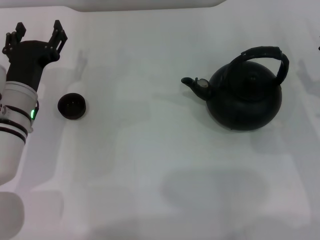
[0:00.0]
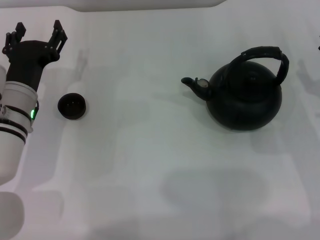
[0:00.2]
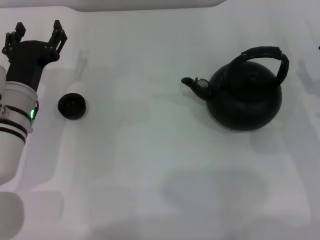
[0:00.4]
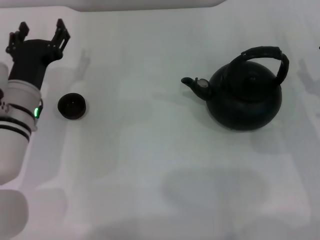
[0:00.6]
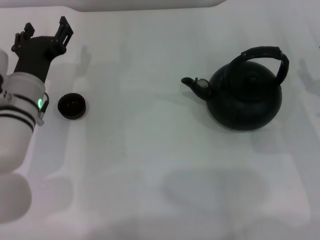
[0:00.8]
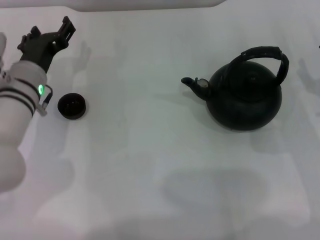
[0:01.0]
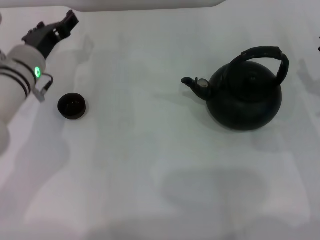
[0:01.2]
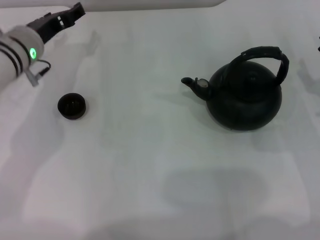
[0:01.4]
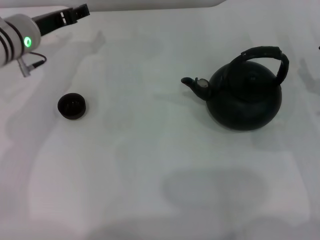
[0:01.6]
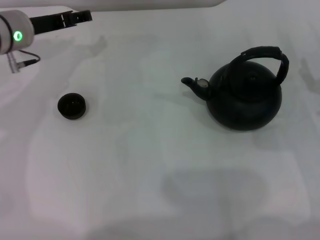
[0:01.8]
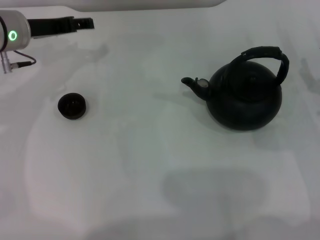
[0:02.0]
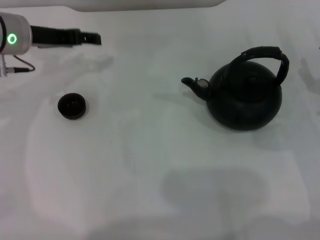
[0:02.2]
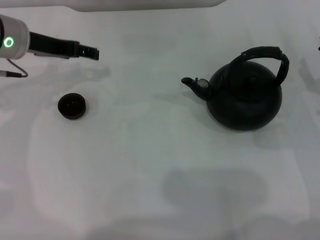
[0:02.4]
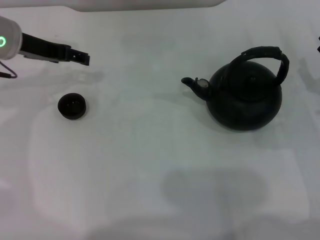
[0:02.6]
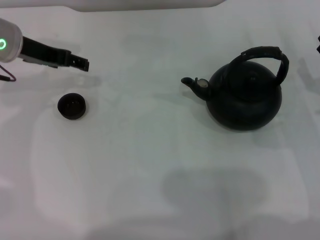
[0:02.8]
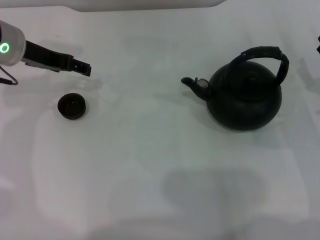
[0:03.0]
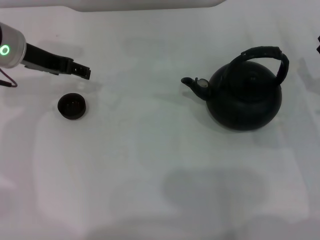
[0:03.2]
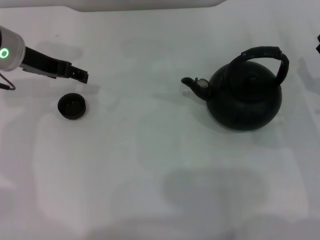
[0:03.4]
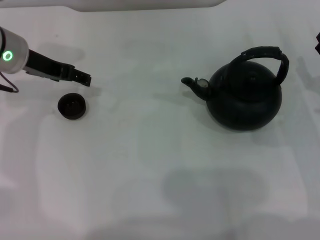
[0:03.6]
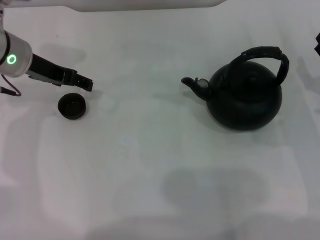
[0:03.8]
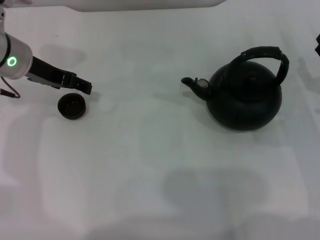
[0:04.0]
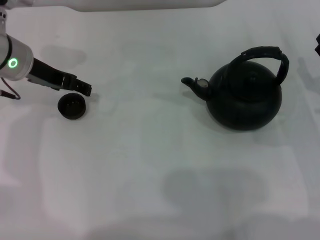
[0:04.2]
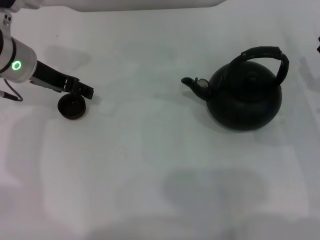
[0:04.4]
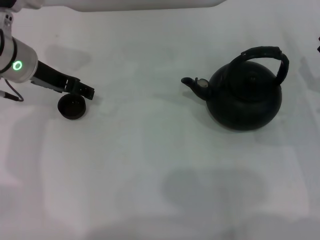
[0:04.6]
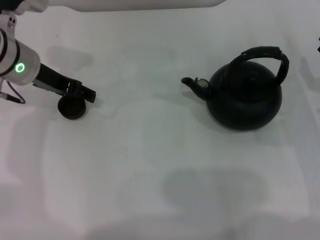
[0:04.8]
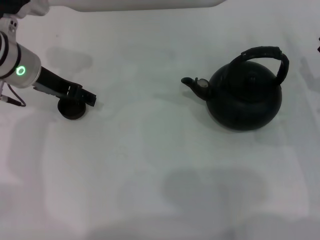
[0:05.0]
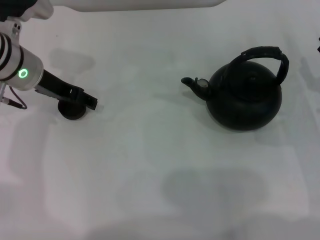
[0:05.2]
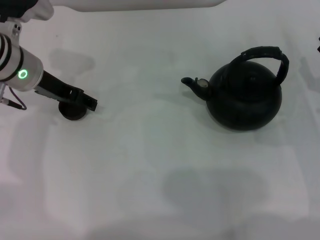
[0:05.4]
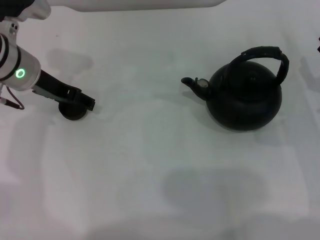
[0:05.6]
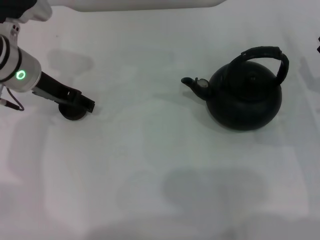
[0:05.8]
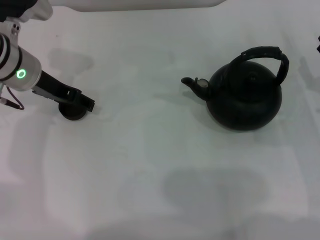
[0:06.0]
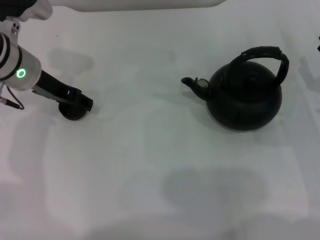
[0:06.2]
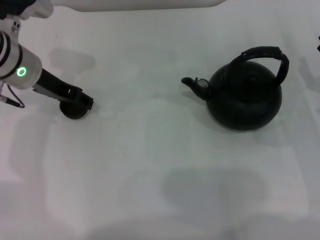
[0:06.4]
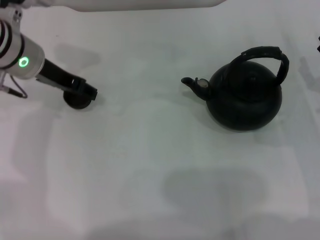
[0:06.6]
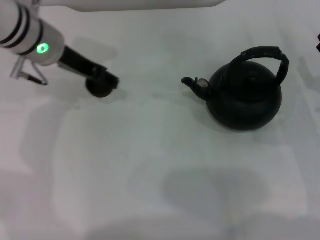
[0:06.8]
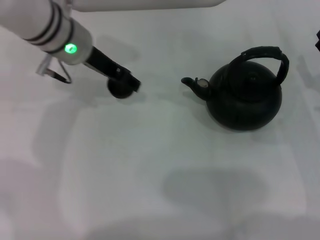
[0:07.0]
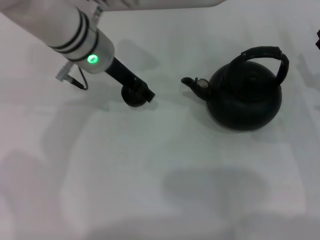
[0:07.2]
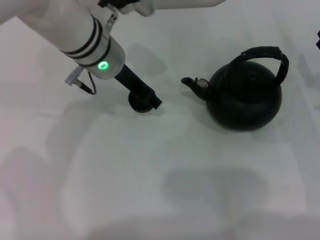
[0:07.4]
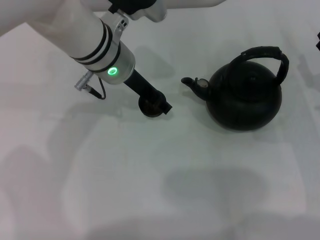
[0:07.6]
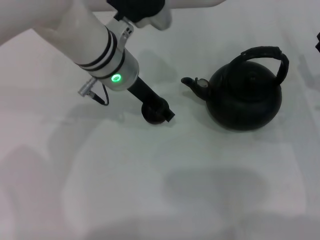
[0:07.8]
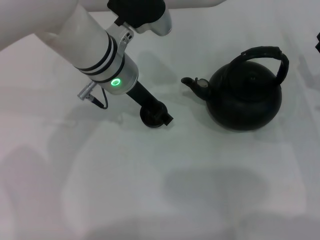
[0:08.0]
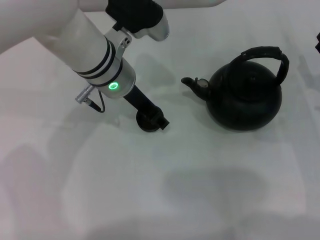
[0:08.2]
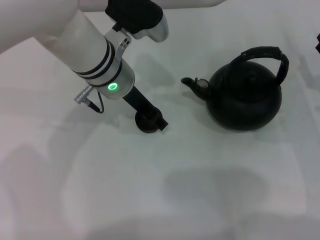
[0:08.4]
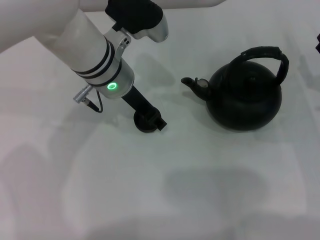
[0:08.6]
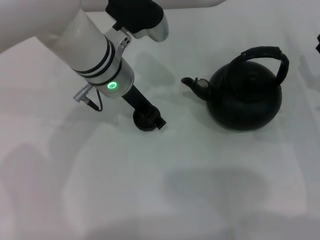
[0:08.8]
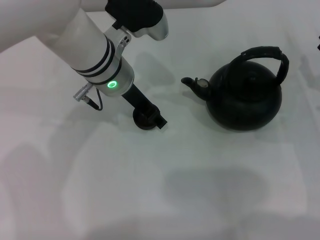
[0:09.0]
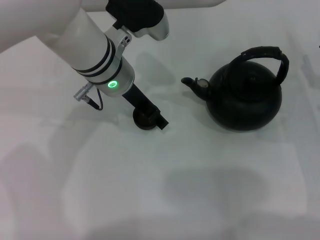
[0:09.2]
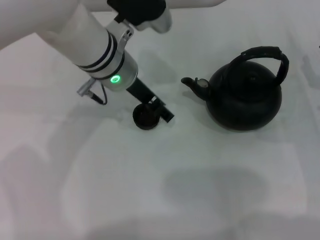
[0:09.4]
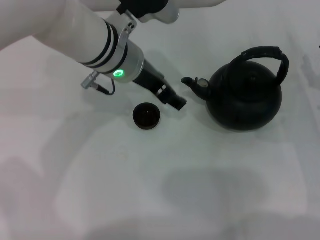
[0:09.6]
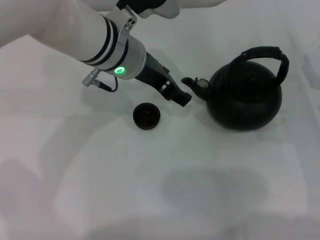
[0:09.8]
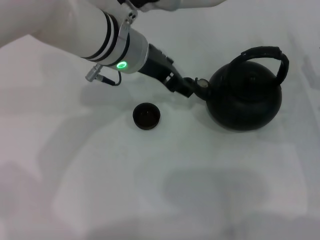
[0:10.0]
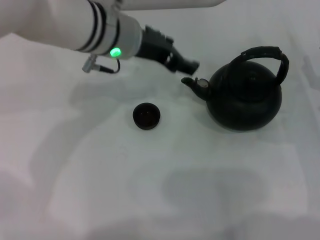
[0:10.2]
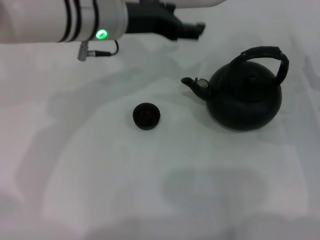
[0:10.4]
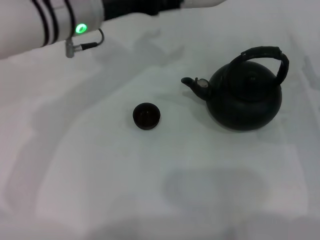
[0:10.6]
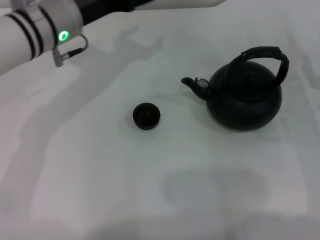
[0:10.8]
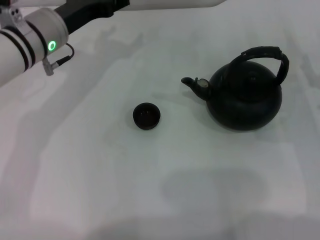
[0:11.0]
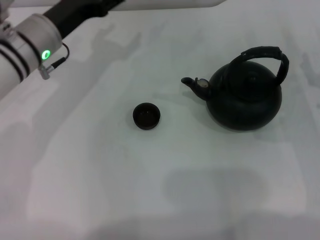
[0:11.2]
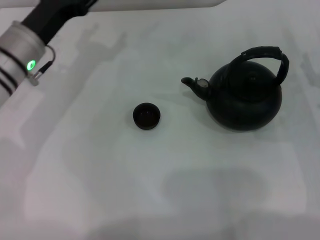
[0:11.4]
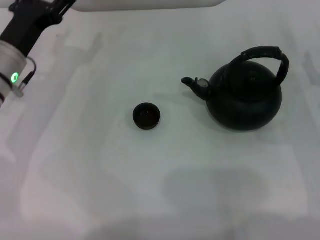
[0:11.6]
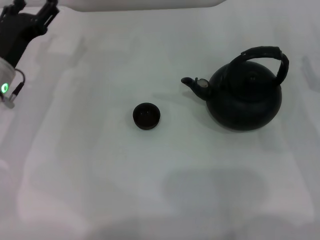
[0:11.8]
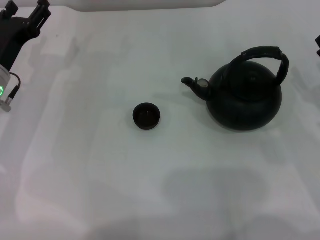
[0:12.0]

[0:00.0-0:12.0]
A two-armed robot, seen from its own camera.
Task of the whole recording: Grasp the handle of the teapot with one hand and pour tea into the teacup.
Step, 0:00.0 to 0:06.6: Pick up the teacup with the left gripper.
Step, 0:06.8 to 0:09.4: Place the teacup in the center of view with the left gripper.
0:00.0 to 0:01.6: The left gripper goes some 10 cm forward and upward.
0:03.0 to 0:04.4: The grippers move only a little.
0:04.4 to 0:06.0: Both grippers stay put.
0:06.0 to 0:07.6: The left gripper heads to the right, covering approximately 15 cm, and closes its fingers.
0:07.6 to 0:09.0: The grippers move only a little.
0:09.0 to 0:10.4: The left gripper is displaced upward by some 5 cm, and opens up.
0:10.4 to 0:12.0: The left gripper is displaced to the left and downward by approximately 20 cm.

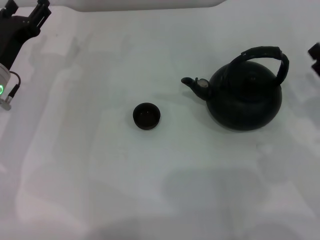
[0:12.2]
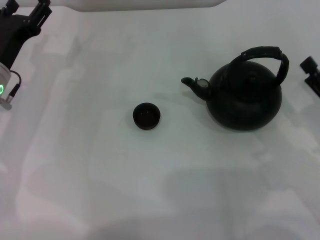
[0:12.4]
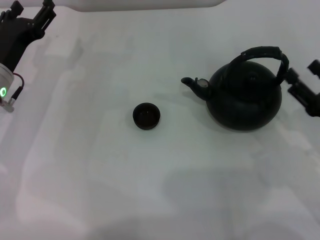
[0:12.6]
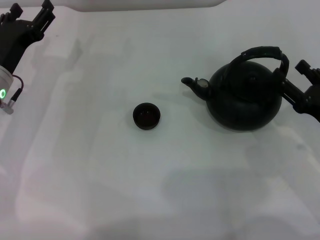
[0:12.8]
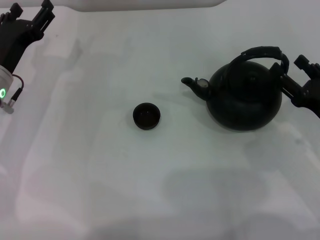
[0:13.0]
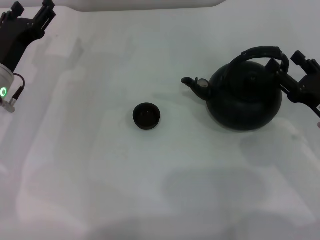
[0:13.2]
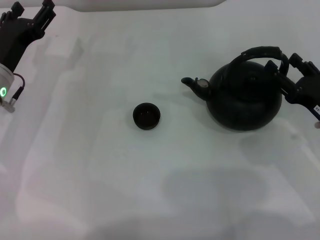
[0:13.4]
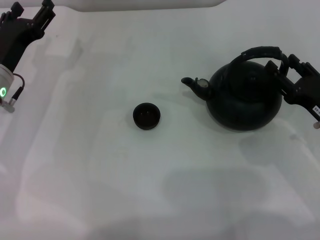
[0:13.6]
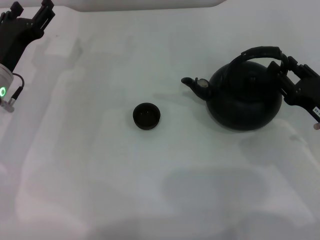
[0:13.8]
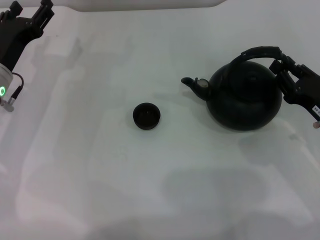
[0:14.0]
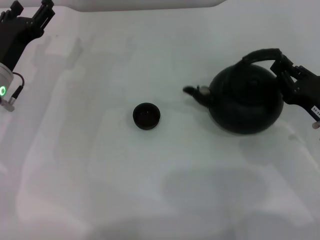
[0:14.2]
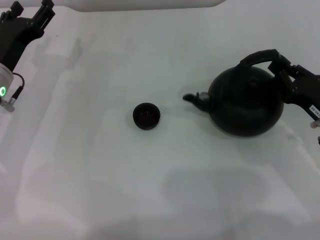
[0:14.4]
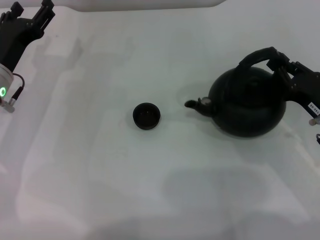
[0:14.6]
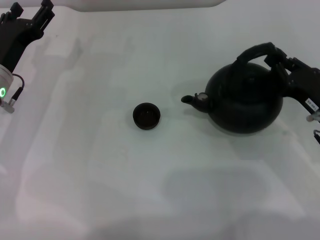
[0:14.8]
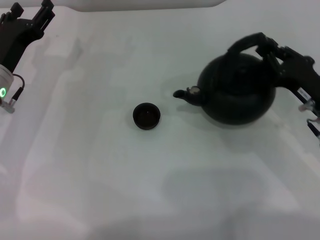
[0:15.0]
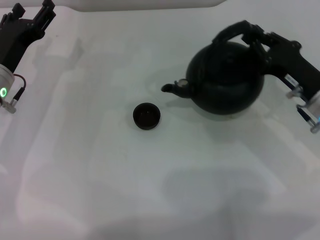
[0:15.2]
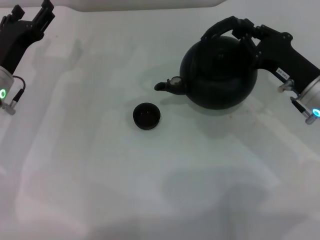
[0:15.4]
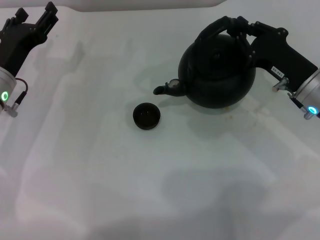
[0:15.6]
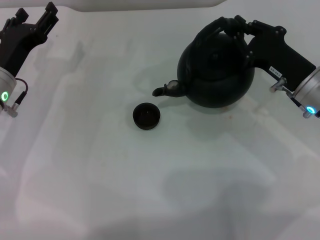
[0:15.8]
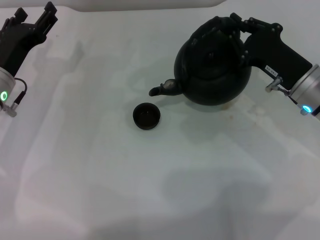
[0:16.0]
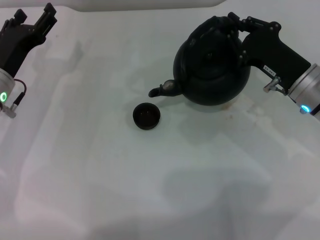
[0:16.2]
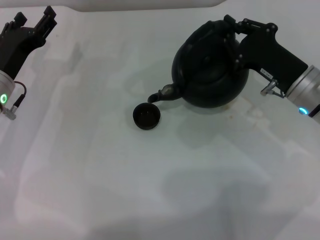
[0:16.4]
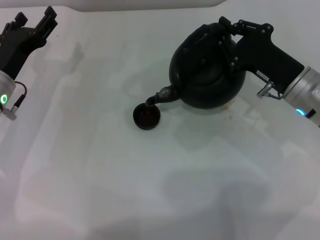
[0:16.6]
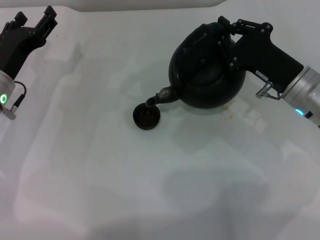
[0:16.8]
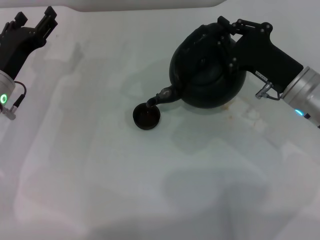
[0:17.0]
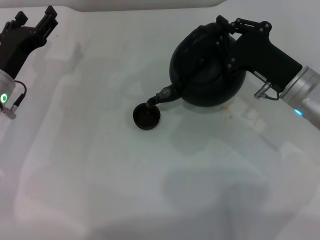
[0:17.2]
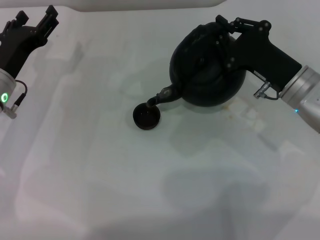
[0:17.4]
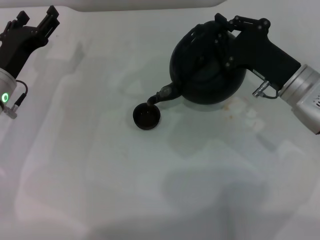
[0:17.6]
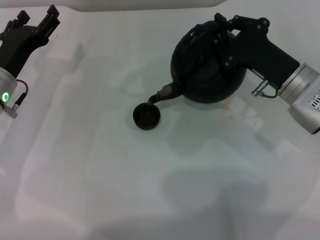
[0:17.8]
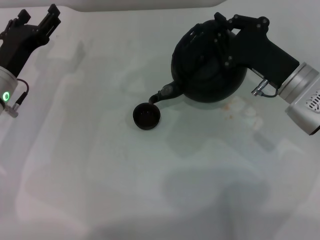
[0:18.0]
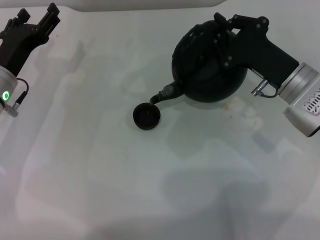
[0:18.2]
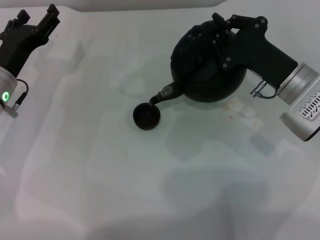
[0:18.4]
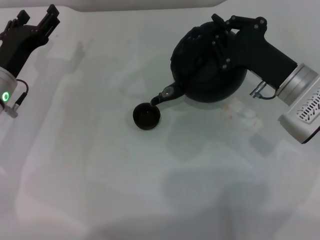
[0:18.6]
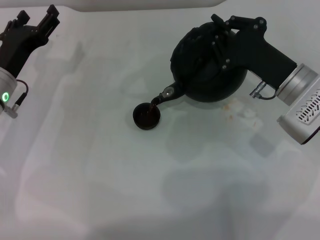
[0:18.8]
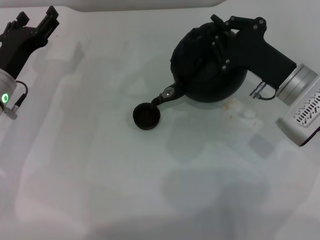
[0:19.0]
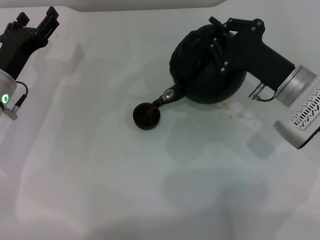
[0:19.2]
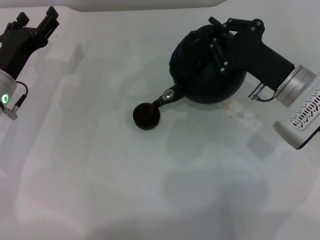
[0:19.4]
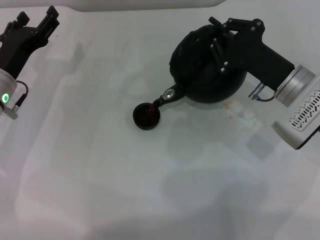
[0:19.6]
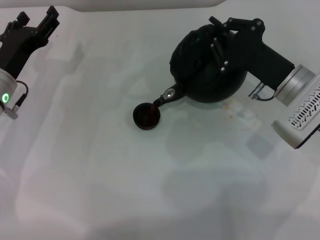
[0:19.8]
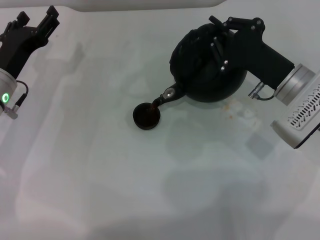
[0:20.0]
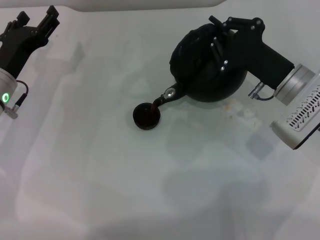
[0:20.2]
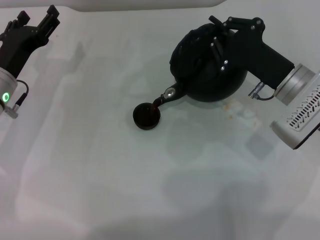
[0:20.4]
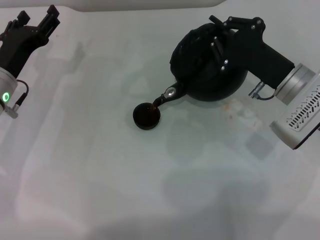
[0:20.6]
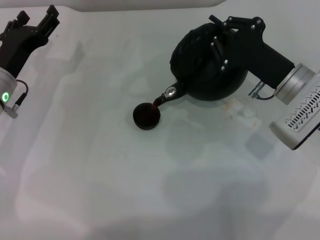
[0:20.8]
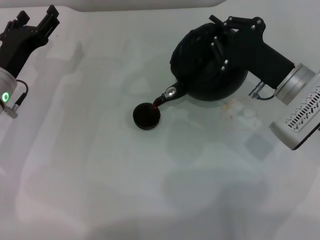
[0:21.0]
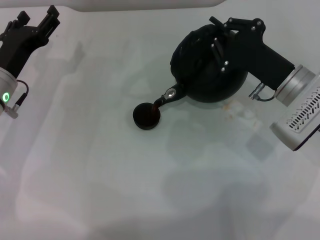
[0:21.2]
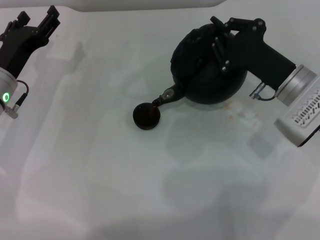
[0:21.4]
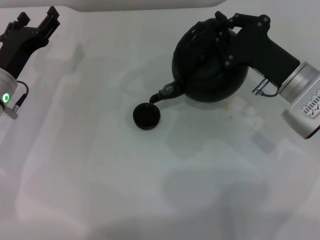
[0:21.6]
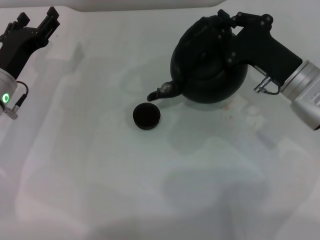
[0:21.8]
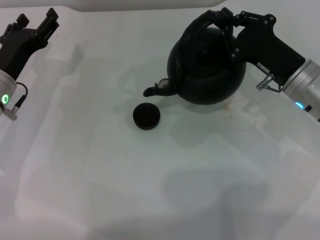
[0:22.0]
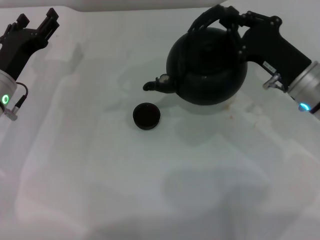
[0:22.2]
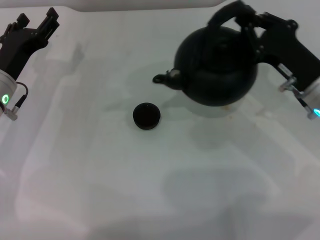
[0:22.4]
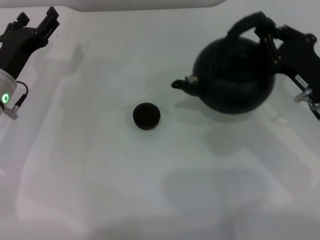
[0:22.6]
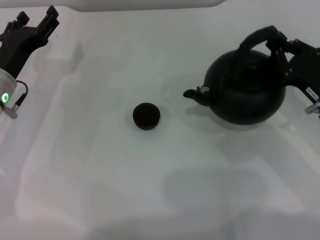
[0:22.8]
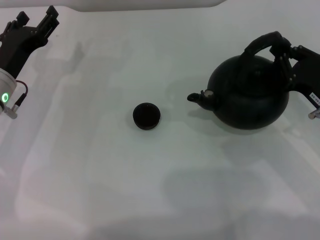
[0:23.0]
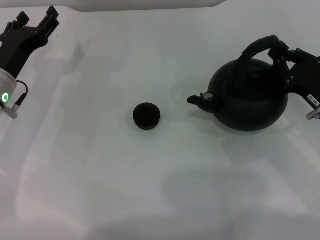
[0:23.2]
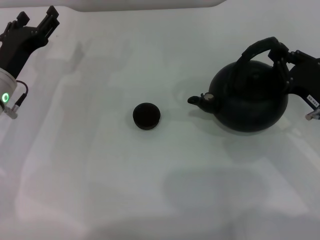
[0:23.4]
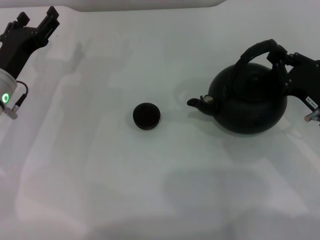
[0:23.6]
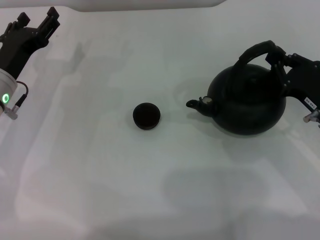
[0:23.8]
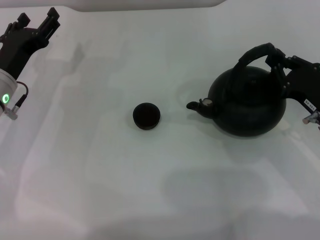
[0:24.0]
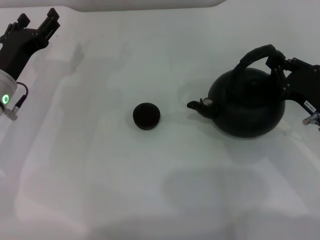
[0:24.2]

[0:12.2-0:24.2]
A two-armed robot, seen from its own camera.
Task of the whole recording: Grasp the handle of the teapot with one hand and pour tea into the teacup.
Step, 0:12.2 to 0:15.6: Pick up the teapot with the right gripper.
Step, 0:16.0 to 0:22.0: Pour tea into the teacup with the right gripper.
0:12.2 to 0:13.8: The grippers stay close to where they were, moving slightly.
0:13.8 to 0:15.2: The right gripper travels forward by some 5 cm, and closes up.
0:16.6 to 0:18.2: The grippers move only a little.
0:18.2 to 0:19.8: The grippers make only small movements.
0:19.8 to 0:21.2: Neither gripper changes place.
0:21.2 to 0:22.6: The right gripper travels to the right by roughly 5 cm.
0:22.6 to 0:24.2: The grippers make only small movements.
